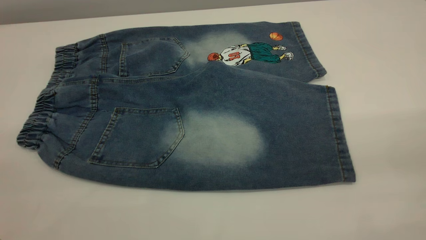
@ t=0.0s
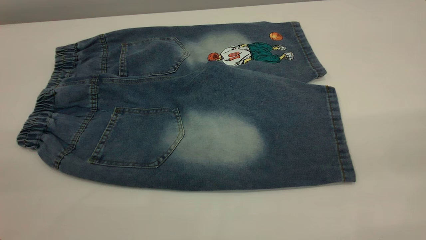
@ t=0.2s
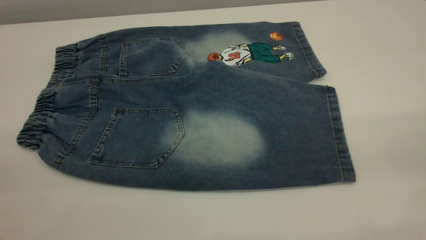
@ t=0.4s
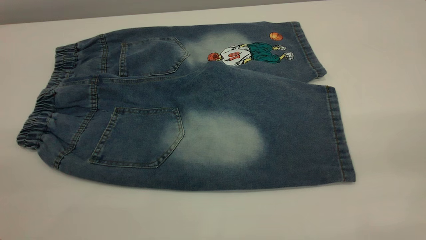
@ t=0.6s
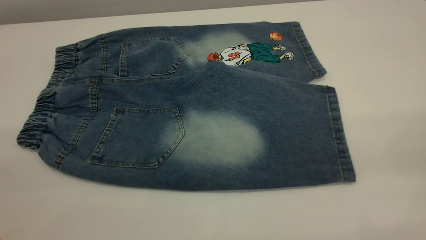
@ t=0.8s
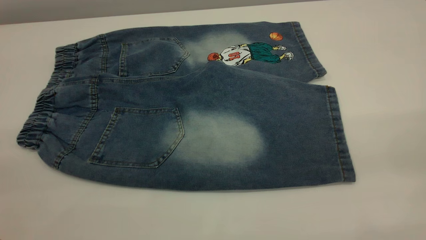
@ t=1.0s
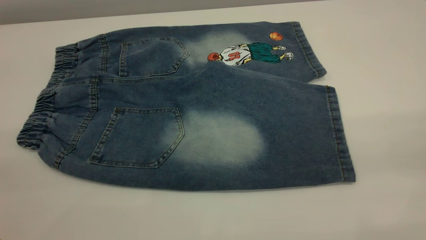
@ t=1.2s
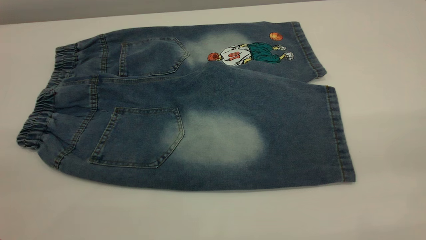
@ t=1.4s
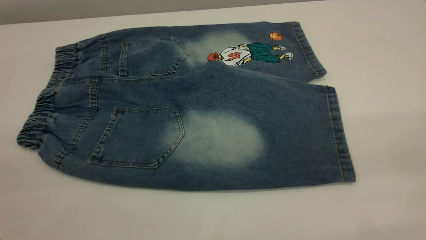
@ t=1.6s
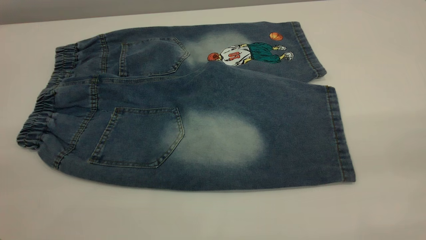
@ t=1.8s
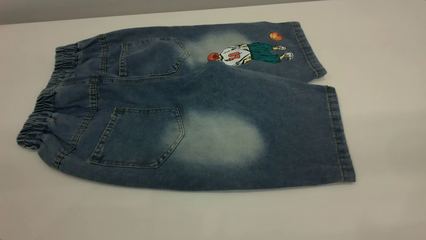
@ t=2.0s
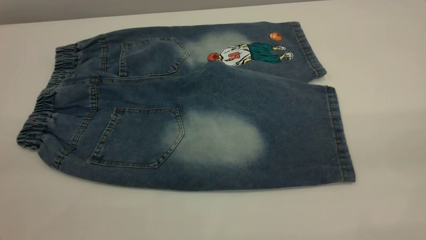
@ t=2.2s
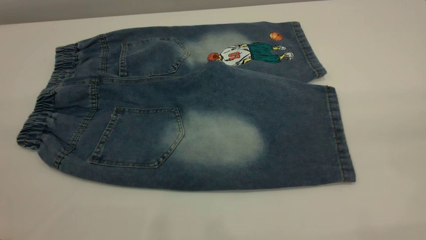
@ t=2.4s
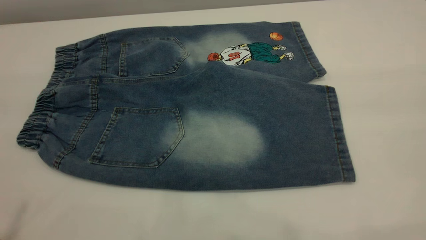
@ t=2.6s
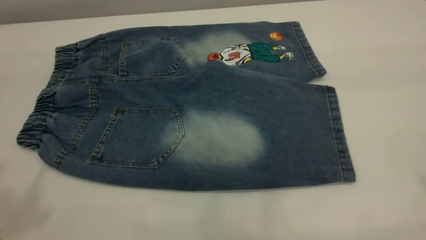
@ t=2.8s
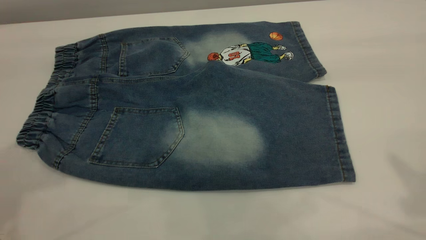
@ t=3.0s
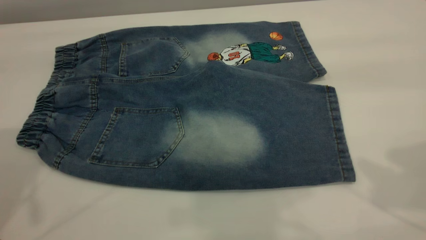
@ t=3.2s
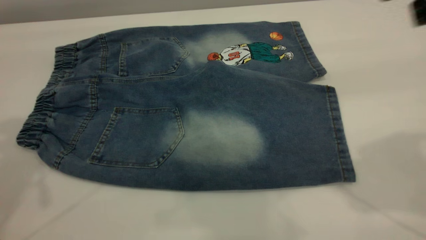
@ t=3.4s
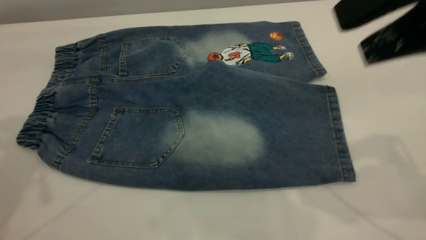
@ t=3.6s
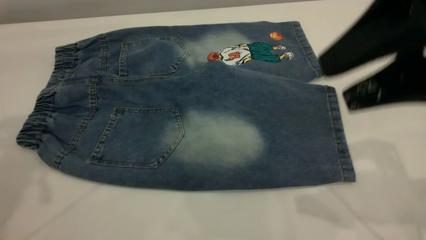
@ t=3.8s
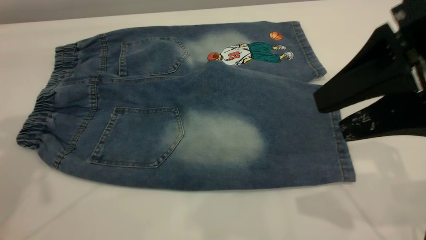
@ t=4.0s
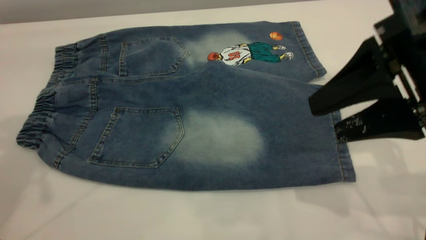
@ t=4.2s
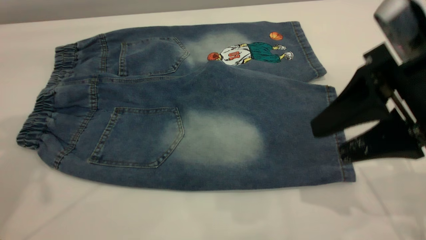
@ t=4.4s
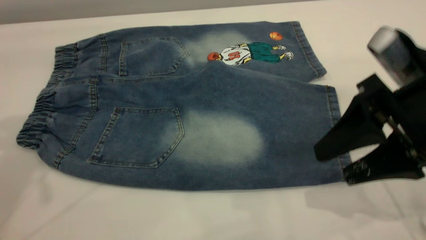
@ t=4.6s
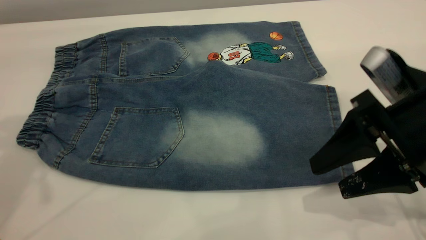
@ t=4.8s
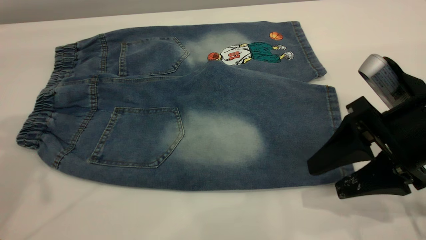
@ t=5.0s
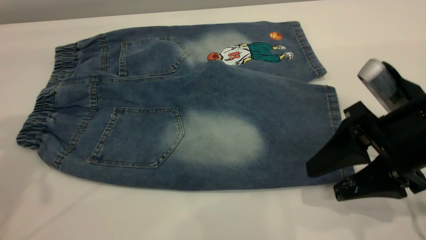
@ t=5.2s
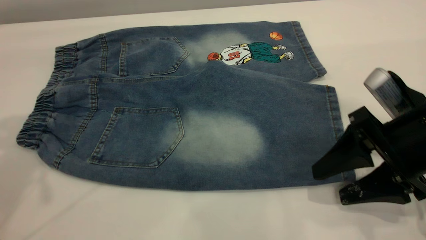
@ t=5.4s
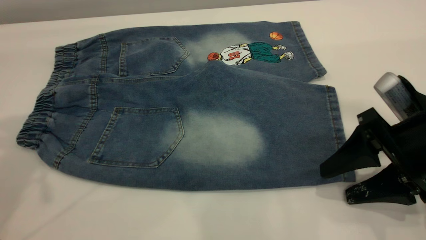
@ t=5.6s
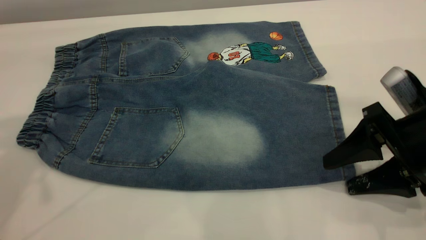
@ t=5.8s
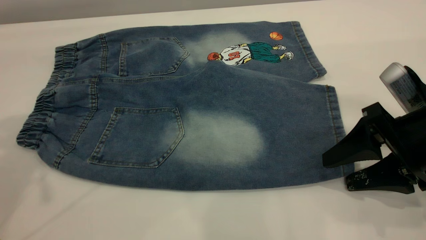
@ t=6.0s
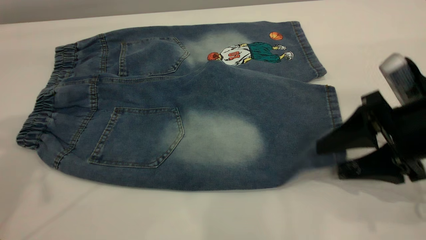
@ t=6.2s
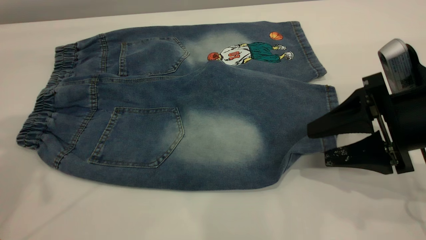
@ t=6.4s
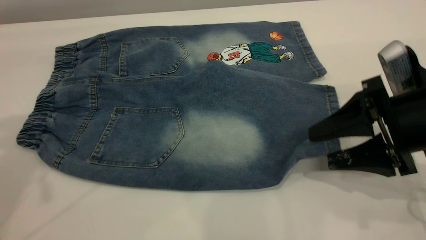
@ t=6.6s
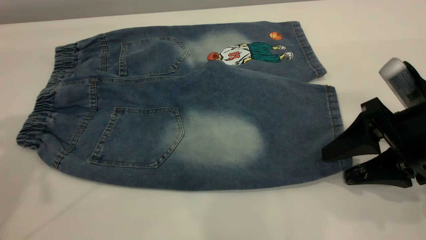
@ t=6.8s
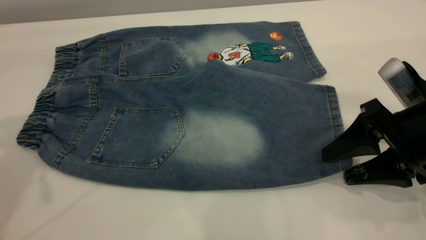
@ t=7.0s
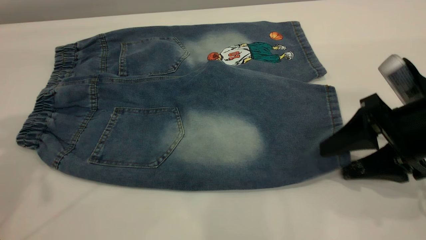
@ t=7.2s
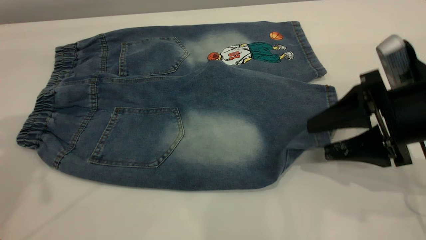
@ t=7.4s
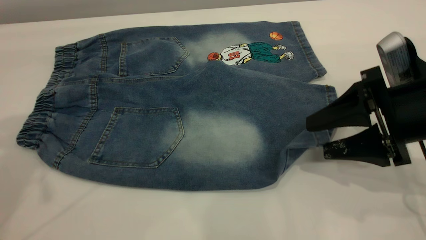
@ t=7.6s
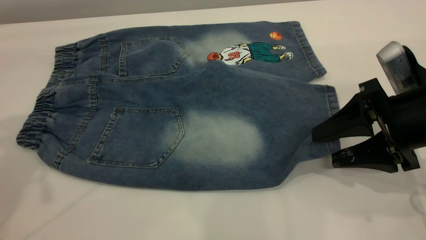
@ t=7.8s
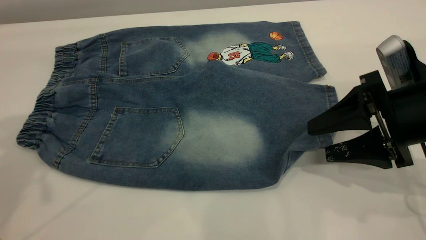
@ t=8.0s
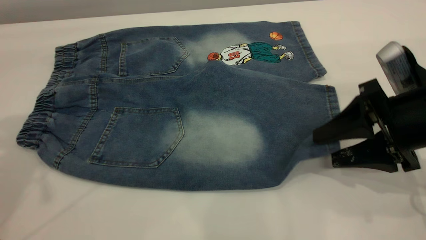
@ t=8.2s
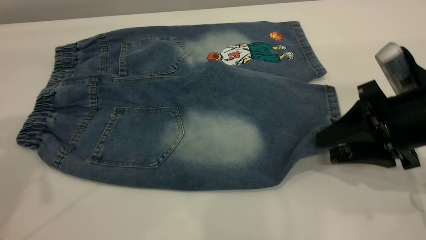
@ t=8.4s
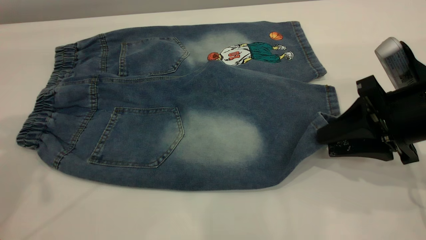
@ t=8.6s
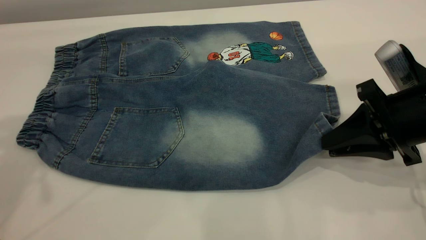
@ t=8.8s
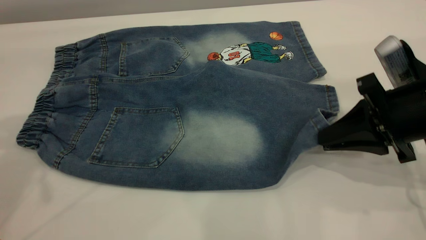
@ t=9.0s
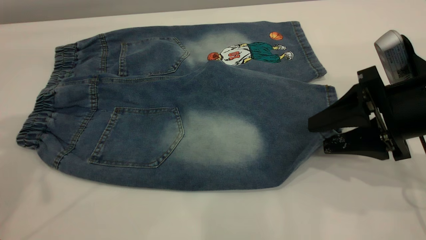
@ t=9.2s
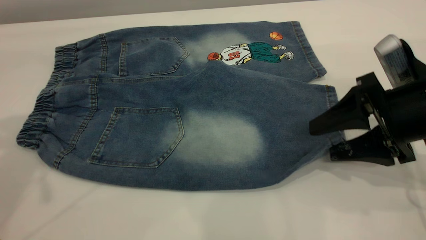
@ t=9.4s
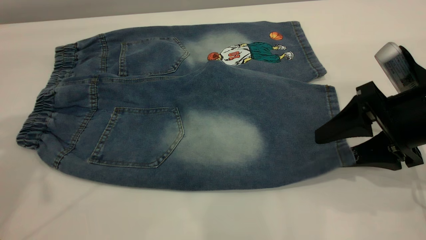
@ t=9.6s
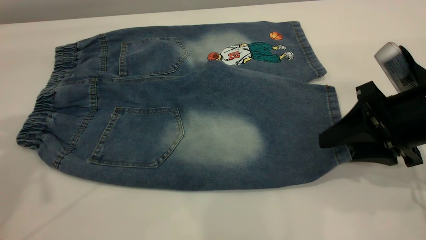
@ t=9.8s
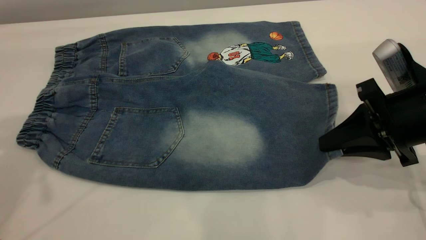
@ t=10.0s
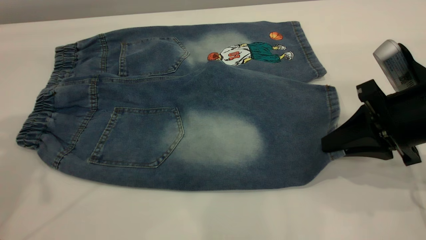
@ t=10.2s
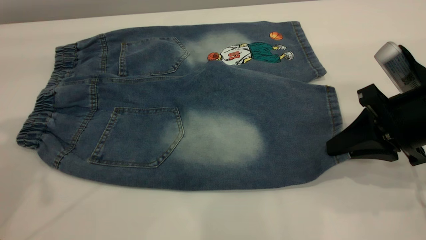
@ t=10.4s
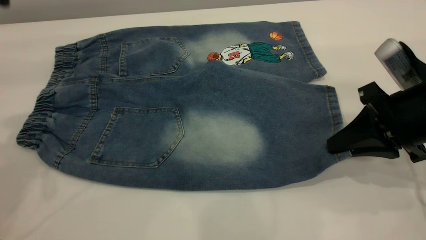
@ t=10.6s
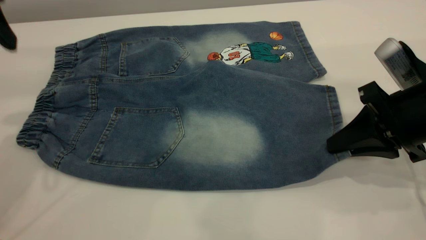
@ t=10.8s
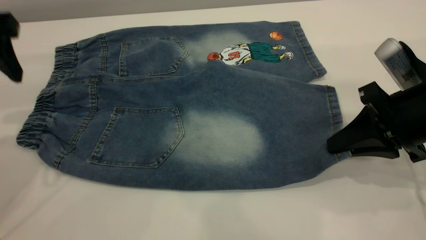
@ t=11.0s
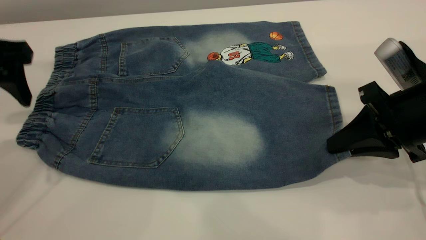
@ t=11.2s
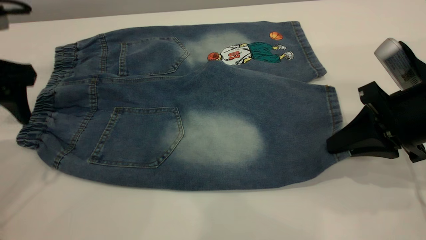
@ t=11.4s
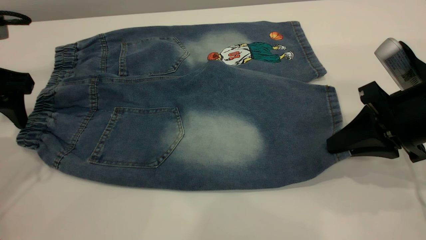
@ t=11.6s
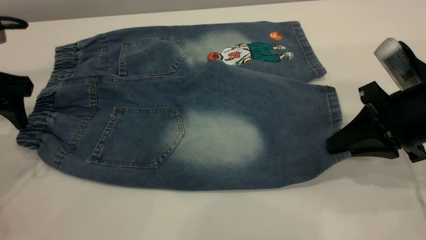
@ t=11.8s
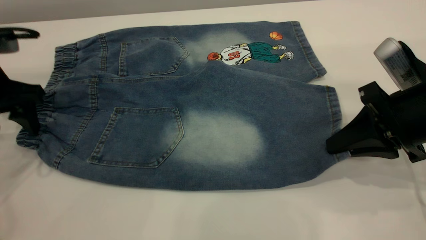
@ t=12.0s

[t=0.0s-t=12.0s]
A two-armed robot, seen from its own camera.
t=0.0s to t=1.6s: Both grippers stay about where they are.
t=3.0s to t=4.4s: The left gripper heads forward, covering roughly 5 cm, while the right gripper travels downward by some 20 cm.
t=4.4s to t=6.0s: The right gripper goes about 10 cm downward.
t=6.0s to t=7.6s: The grippers stay close to where they were, moving slightly.
t=7.6s to t=9.0s: The right gripper closes.
t=9.0s to t=10.4s: The right gripper opens, then closes once more.
t=10.4s to t=12.0s: The left gripper travels downward by some 20 cm.

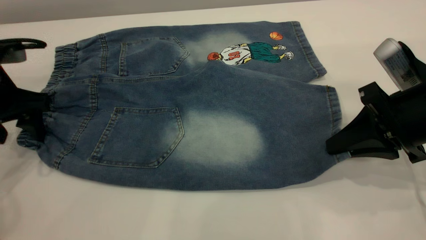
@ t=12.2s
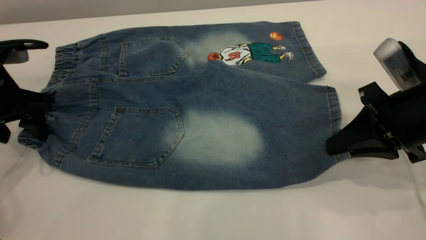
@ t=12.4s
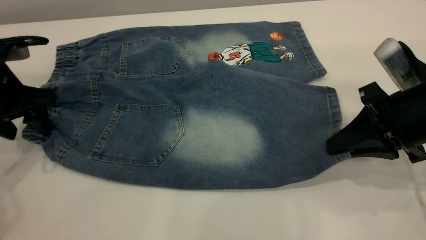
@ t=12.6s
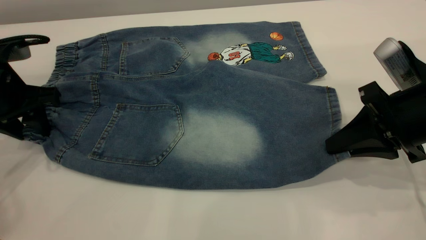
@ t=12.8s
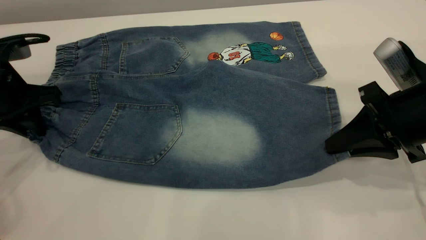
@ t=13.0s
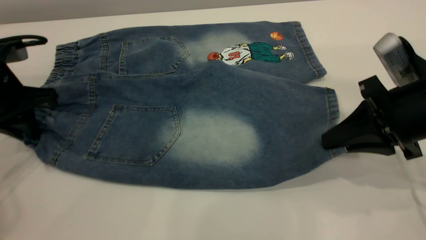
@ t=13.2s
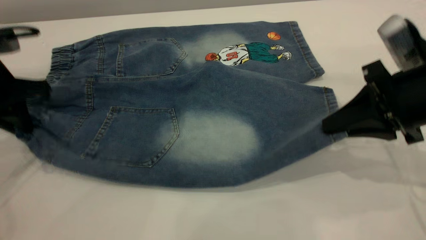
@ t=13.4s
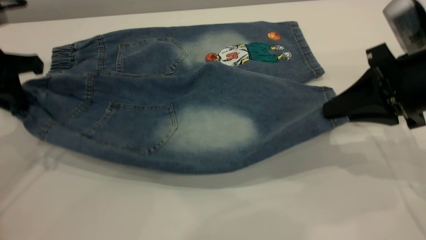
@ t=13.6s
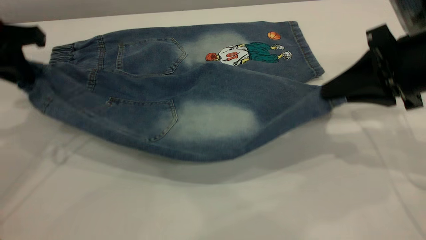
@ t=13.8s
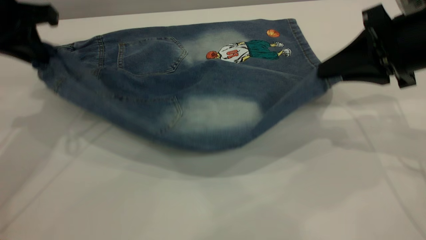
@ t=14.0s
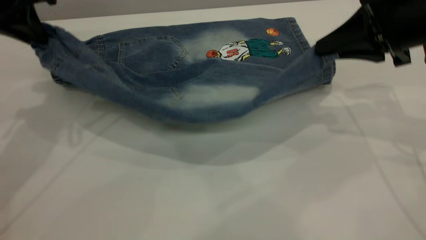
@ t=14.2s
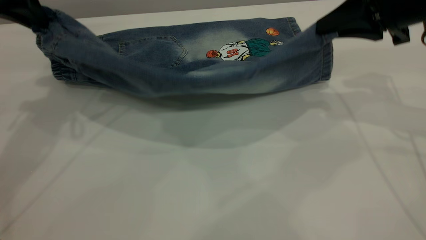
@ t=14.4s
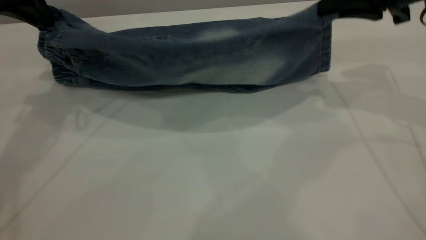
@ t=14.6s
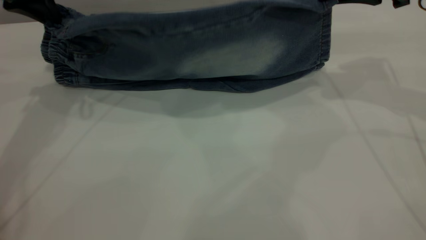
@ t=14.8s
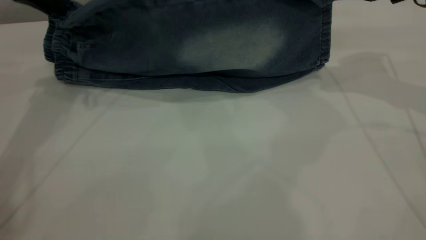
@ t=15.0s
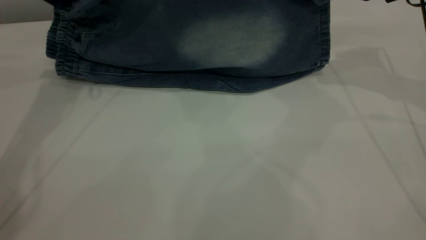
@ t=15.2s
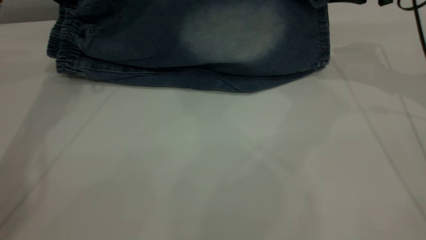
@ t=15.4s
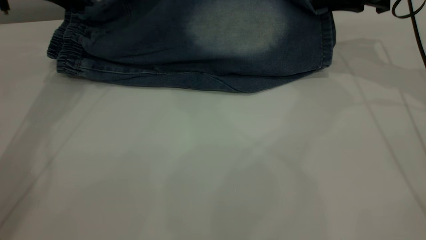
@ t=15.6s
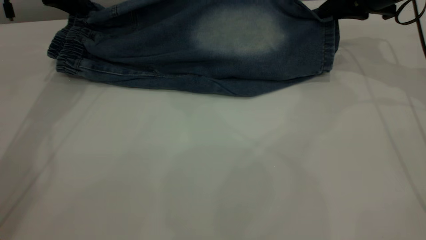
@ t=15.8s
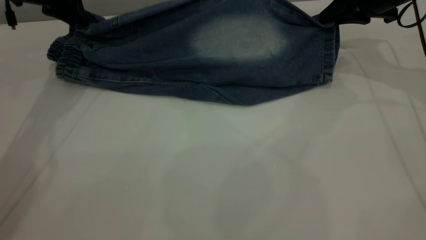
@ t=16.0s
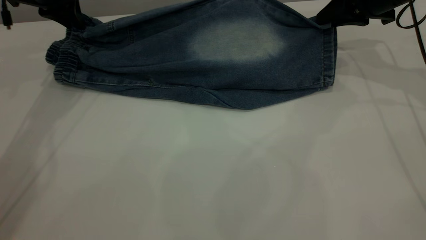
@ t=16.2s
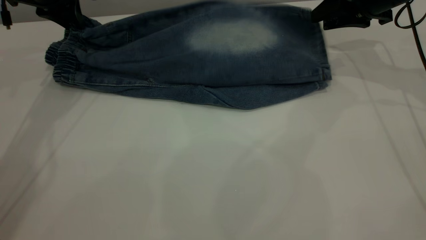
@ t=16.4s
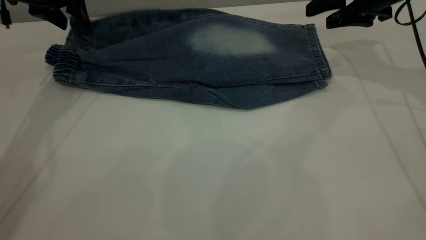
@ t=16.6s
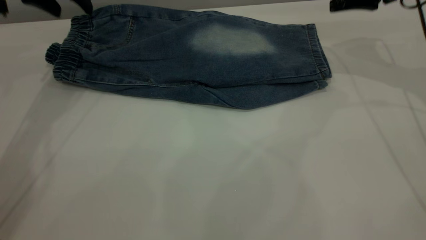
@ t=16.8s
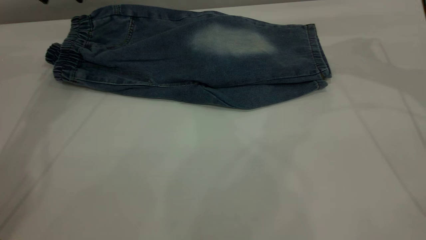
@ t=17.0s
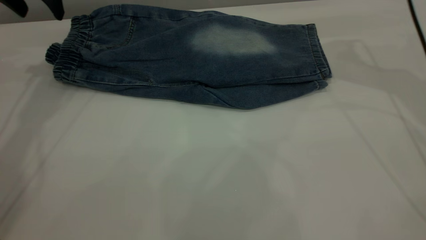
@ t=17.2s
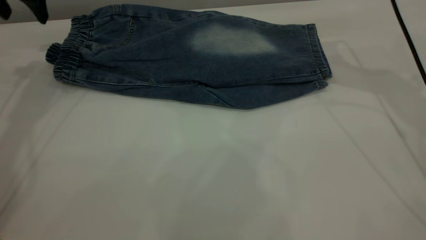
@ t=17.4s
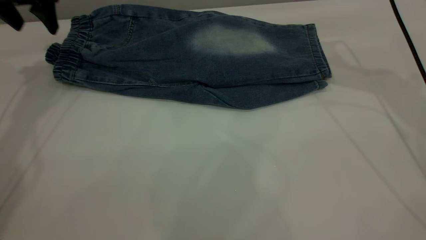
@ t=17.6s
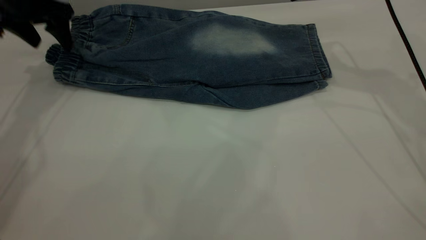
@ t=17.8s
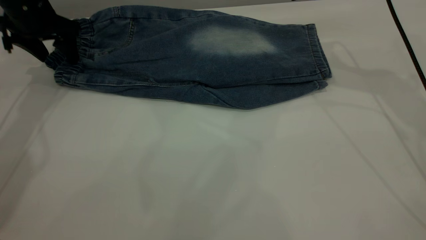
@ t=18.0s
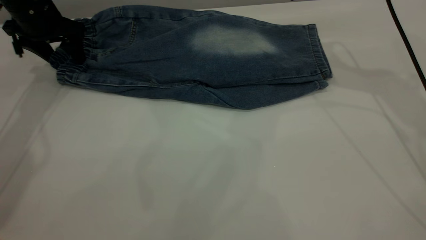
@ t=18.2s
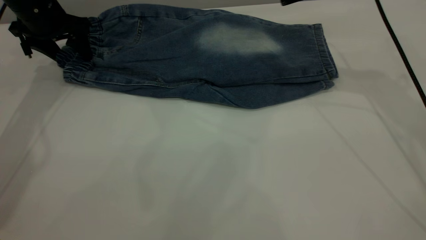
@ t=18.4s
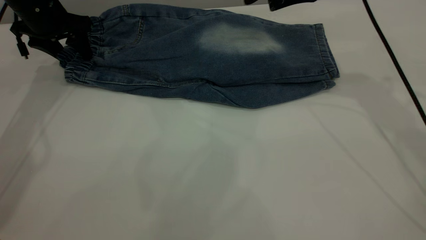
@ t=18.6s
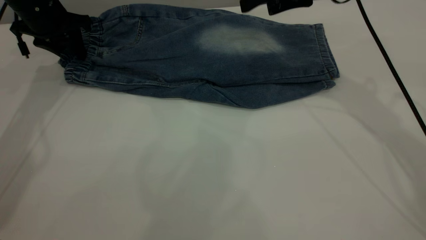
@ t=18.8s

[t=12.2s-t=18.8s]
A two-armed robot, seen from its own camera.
Step, t=12.2s to t=17.0s: Fold the bottom of the pants upward.
t=12.2s to t=13.8s: The right gripper travels upward by some 5 cm; the left gripper shifts approximately 10 cm upward, and closes its fingers.
t=13.8s to t=15.4s: The grippers both shift forward by some 15 cm.
t=15.4s to t=17.2s: The right gripper shifts by about 5 cm, and opens; the left gripper opens.
t=17.2s to t=18.8s: The left gripper goes some 10 cm downward, and closes its fingers; the right gripper moves to the left, roughly 10 cm.
